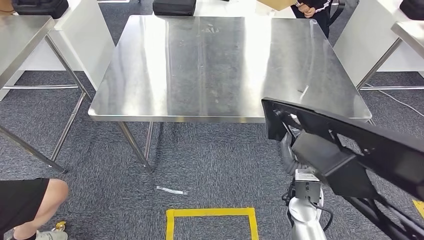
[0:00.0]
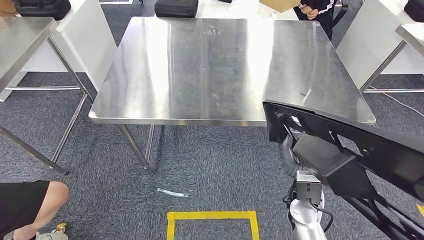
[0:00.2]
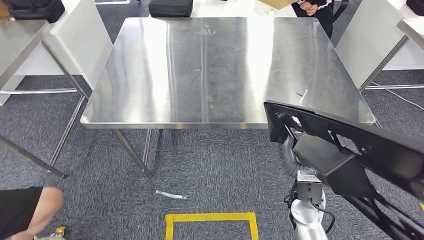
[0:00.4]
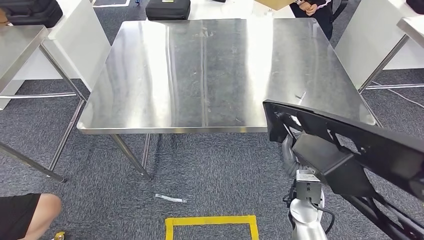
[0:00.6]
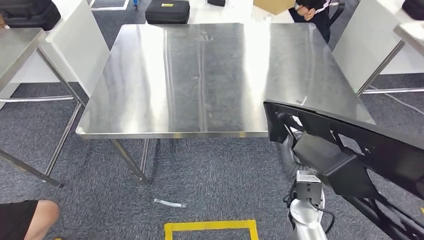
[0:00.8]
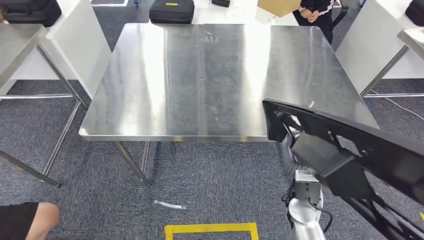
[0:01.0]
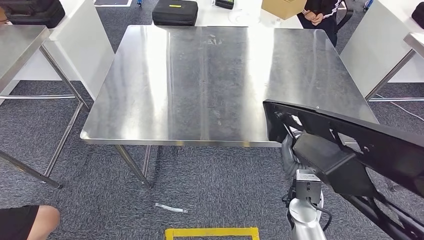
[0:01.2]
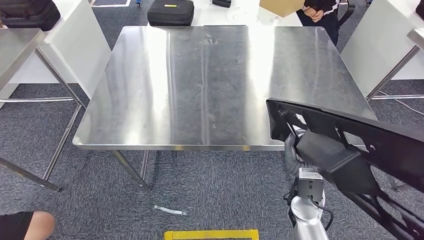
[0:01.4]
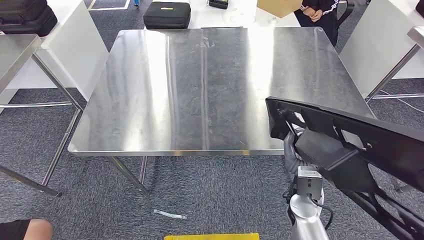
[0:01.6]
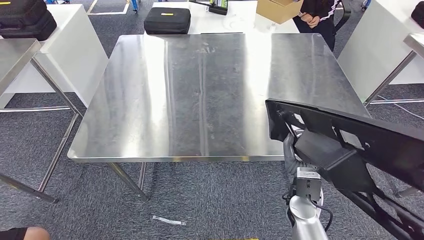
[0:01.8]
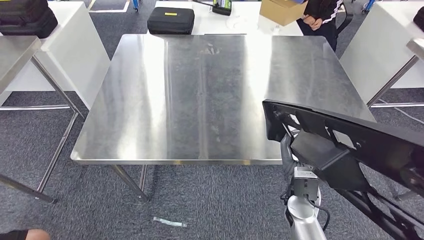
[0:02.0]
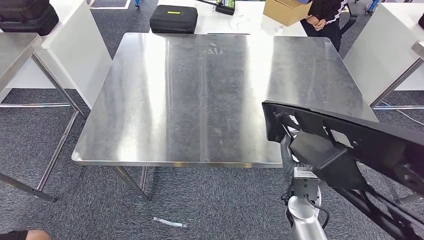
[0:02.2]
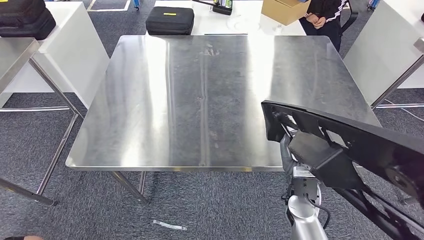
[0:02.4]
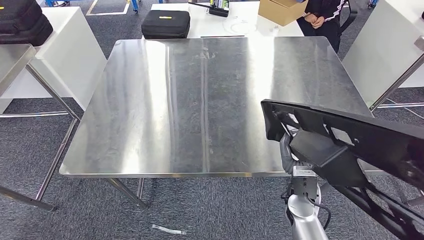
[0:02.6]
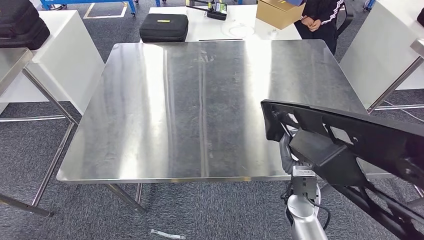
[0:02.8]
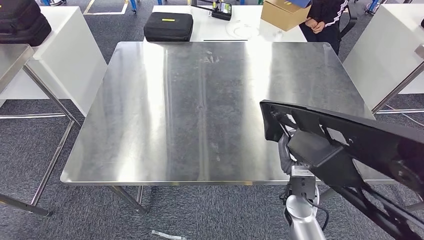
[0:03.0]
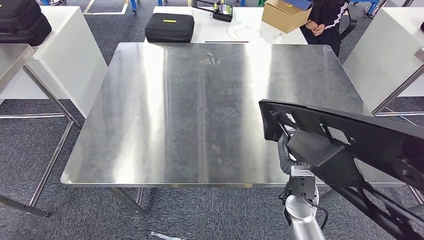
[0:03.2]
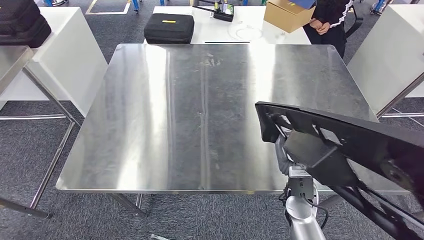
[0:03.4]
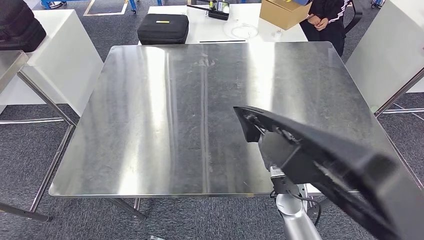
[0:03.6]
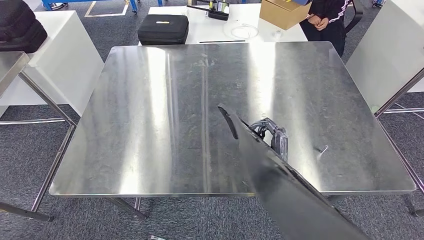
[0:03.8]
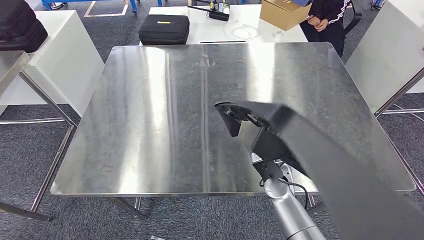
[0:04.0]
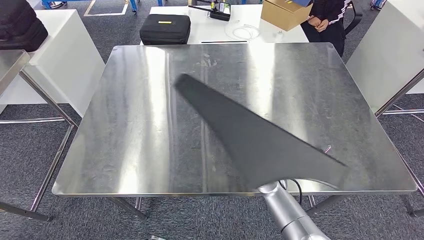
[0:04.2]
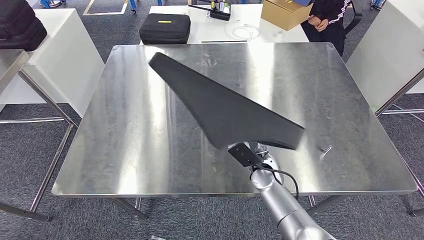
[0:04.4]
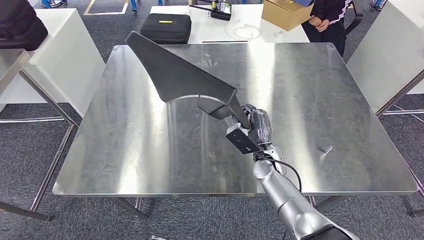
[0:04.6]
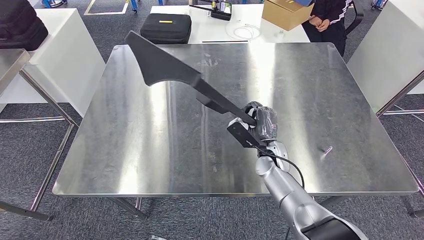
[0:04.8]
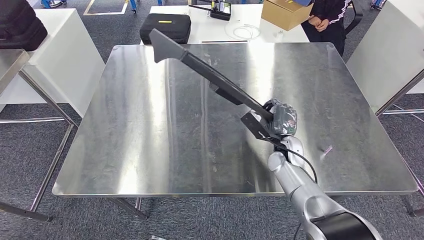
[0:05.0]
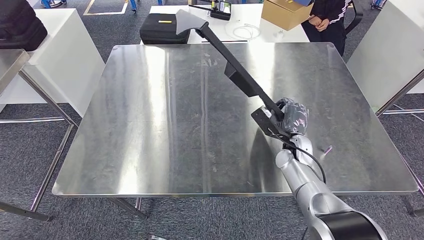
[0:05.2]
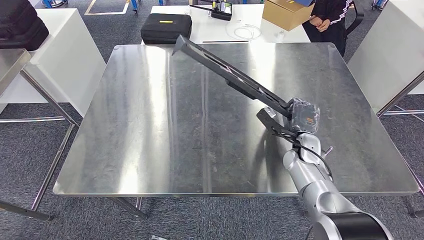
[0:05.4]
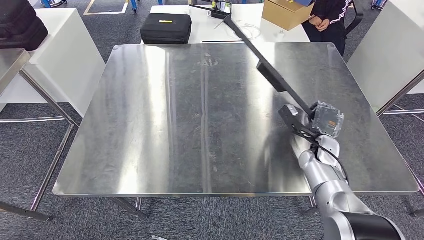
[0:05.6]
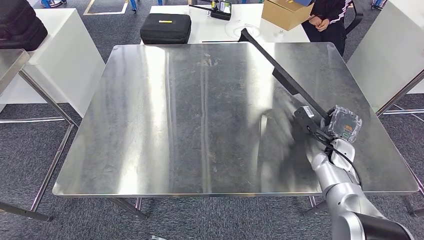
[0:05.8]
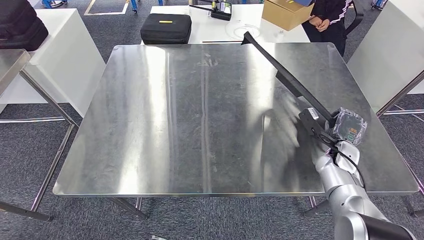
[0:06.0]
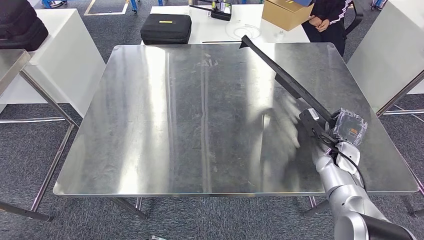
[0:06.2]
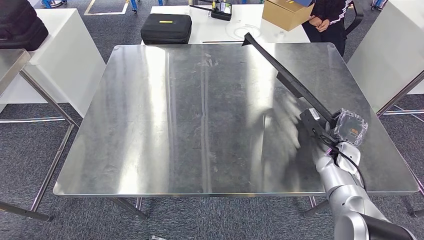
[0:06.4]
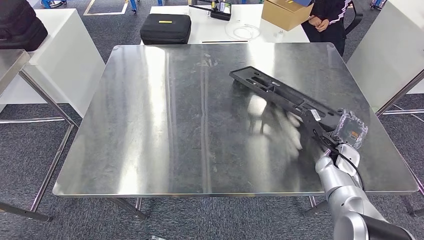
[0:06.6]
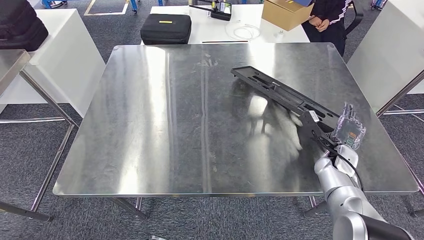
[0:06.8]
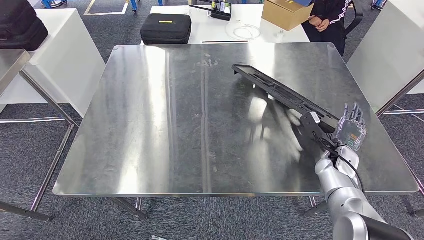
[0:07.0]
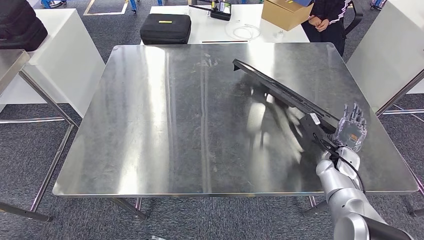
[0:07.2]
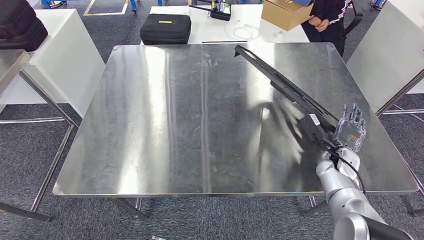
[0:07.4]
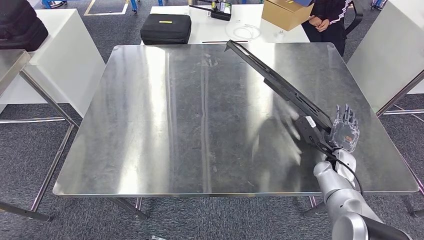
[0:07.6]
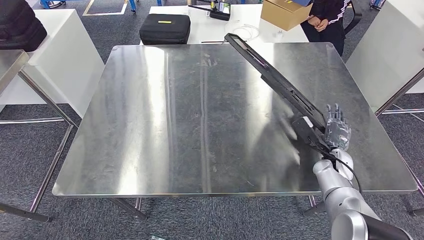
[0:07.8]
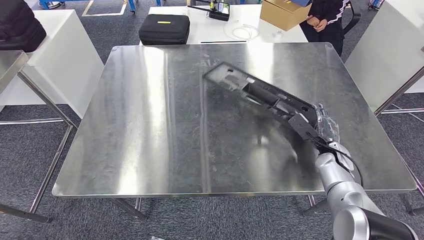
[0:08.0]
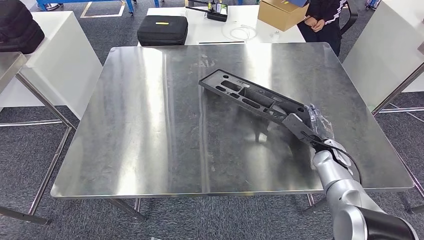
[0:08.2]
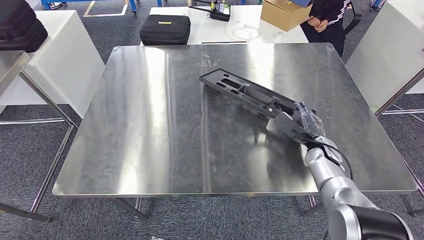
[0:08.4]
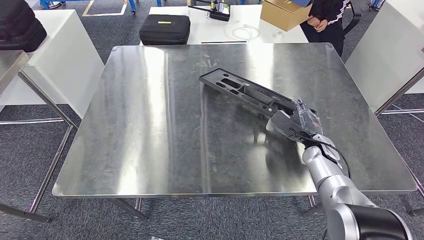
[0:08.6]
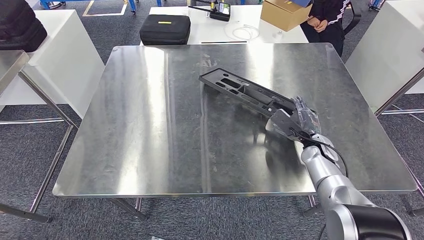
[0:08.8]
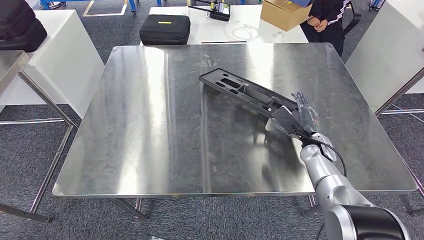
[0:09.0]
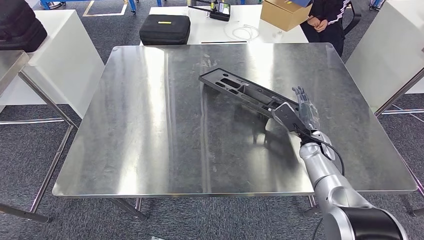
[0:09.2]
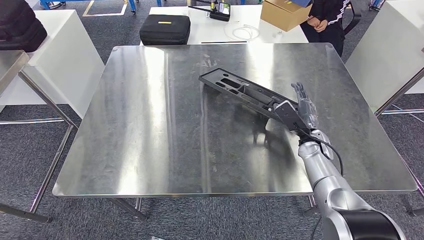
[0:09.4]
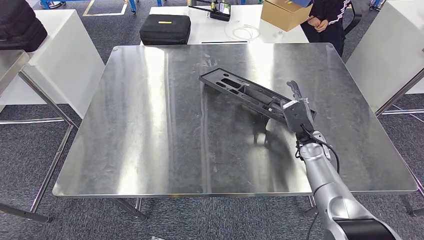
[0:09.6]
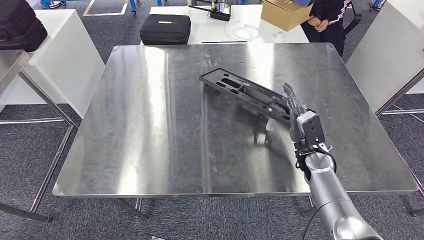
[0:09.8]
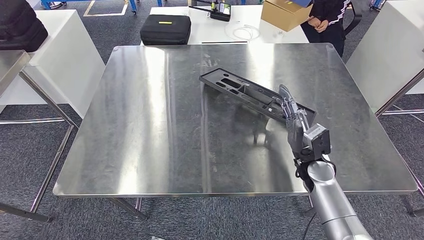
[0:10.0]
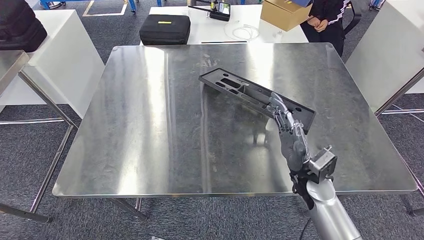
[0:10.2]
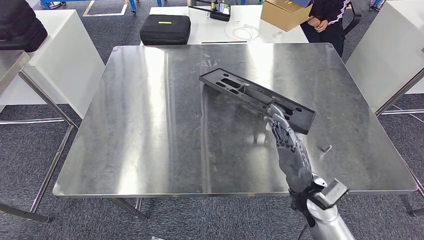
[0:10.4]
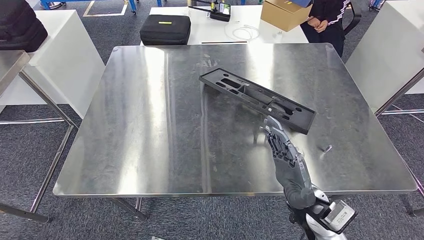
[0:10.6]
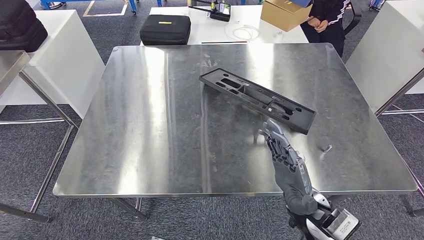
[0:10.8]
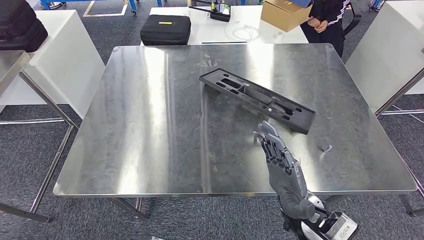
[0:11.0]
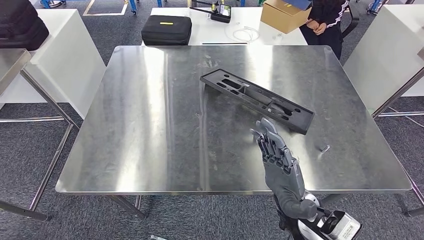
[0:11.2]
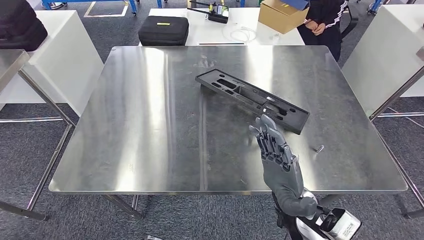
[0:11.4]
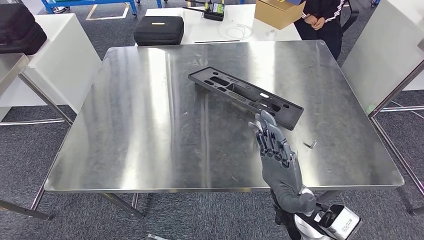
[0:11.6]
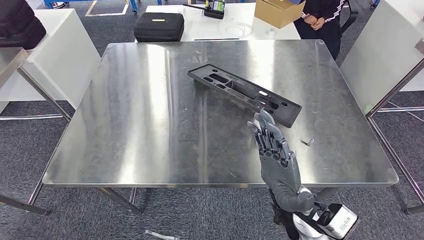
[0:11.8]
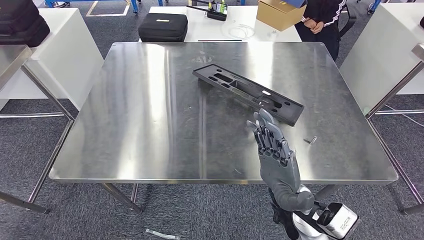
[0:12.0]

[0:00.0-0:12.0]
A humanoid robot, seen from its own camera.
Step, 0:00.0 to 0:10.6: Insert the large material into the corresponding hole on the workbench.
0:06.0 to 0:07.6: The hands move only a little.
0:07.6 to 0:09.0: The right hand is displaced to the left by roughly 5 cm.
0:09.0 to 0:10.4: The right hand goes approximately 20 cm backward and to the left.

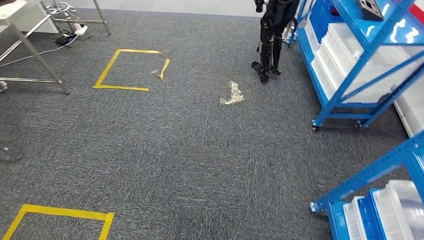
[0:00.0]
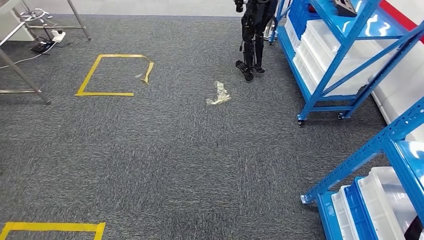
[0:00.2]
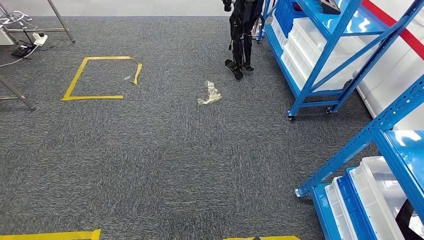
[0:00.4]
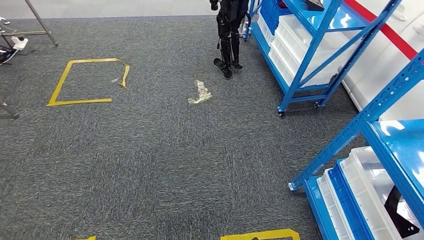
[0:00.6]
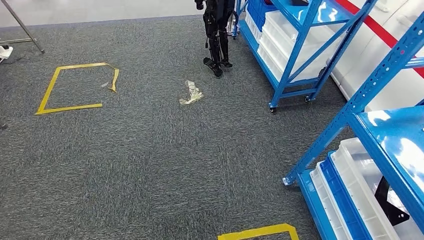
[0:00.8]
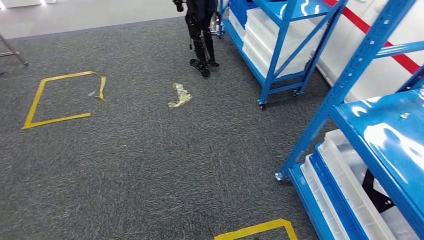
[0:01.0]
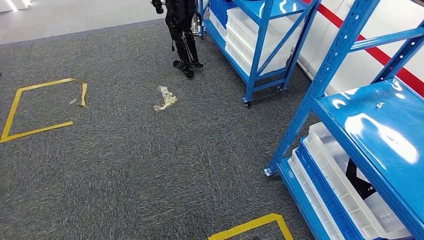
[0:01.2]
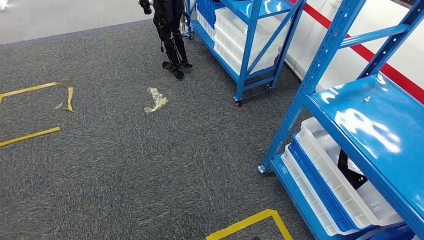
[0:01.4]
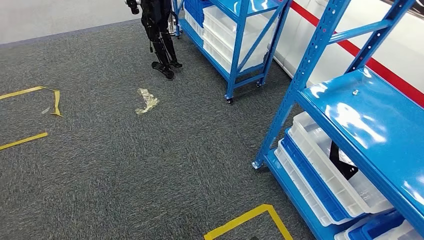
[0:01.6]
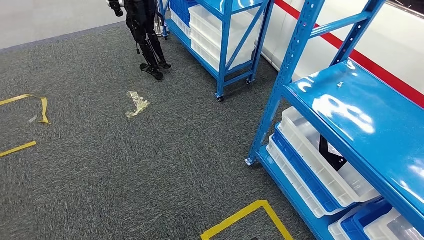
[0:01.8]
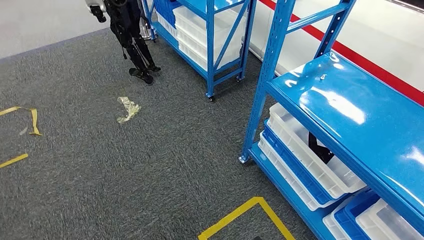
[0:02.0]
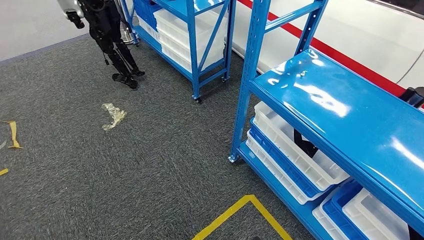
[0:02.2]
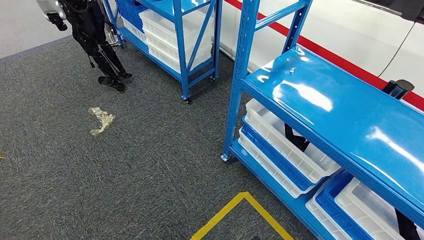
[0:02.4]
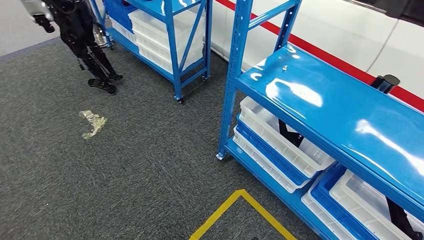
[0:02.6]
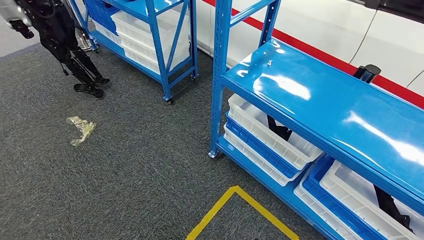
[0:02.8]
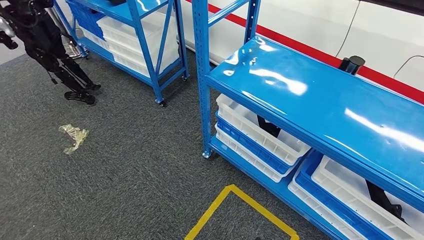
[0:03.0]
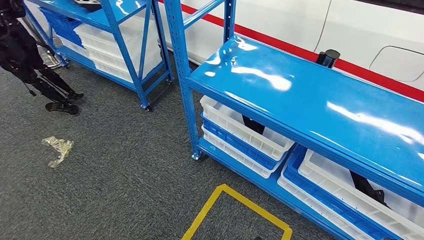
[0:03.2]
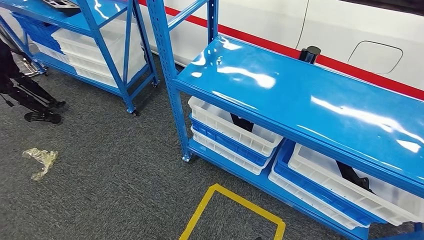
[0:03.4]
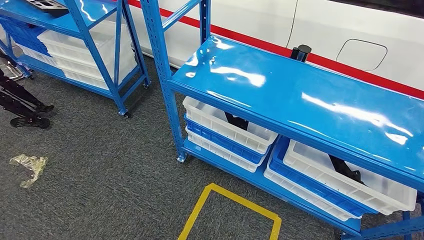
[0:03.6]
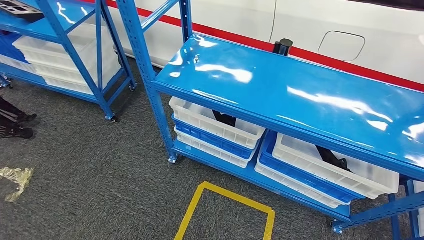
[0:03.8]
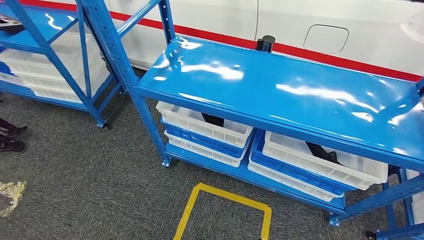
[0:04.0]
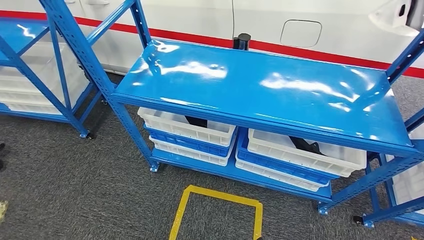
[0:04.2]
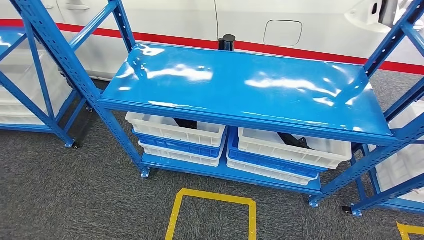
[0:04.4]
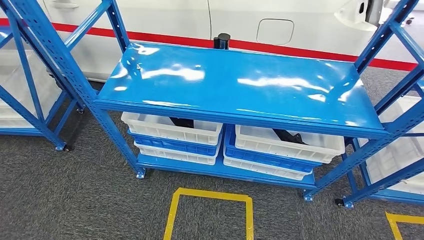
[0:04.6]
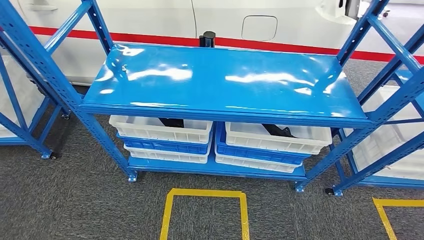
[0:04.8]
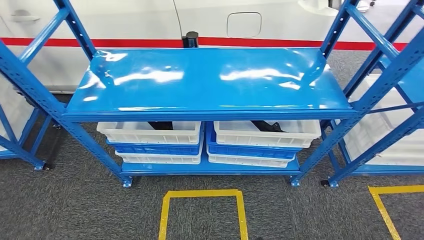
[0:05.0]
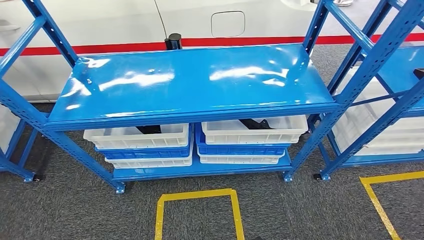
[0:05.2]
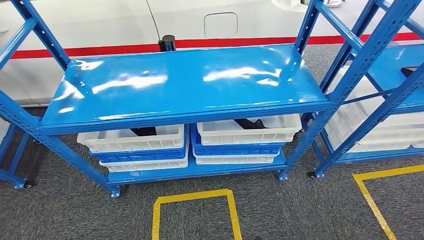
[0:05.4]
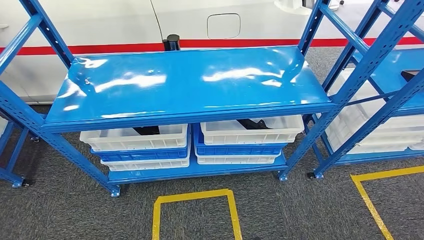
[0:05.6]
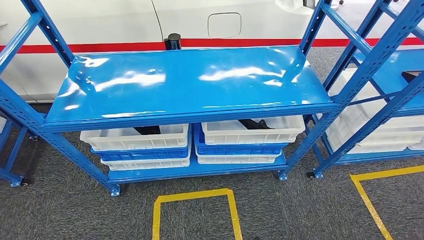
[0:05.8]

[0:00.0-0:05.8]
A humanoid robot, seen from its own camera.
Step, 0:00.0 to 0:05.8: Move to the initial position of the shelf.
